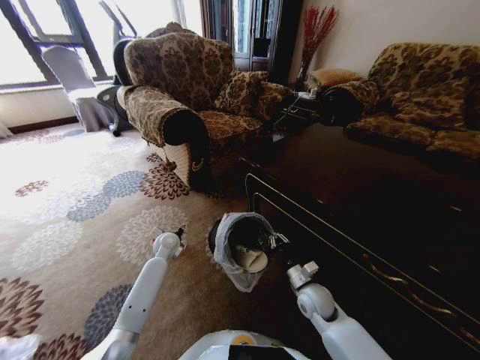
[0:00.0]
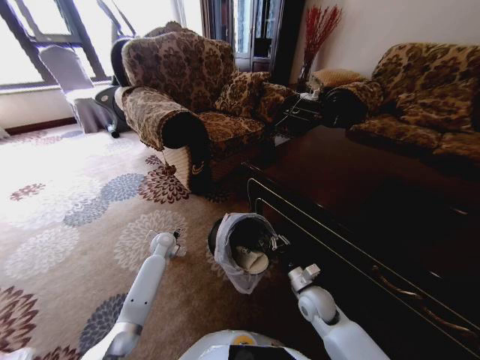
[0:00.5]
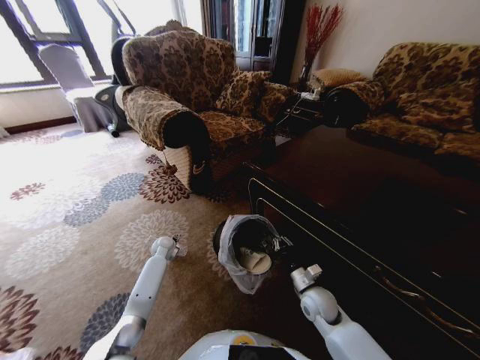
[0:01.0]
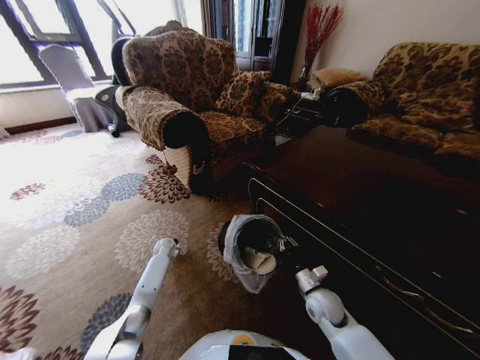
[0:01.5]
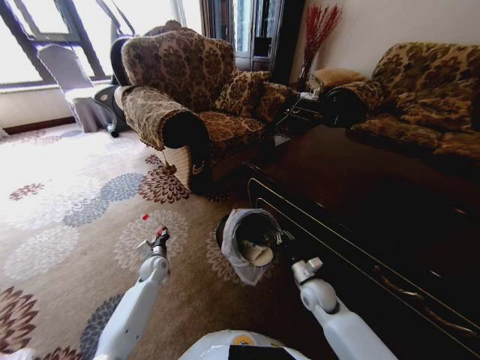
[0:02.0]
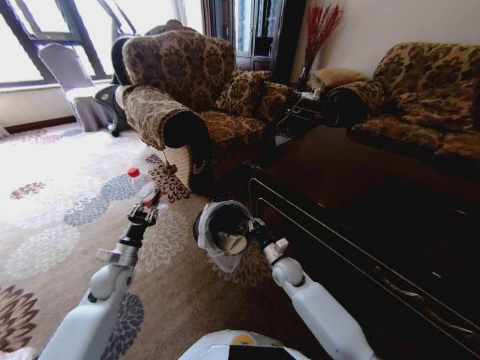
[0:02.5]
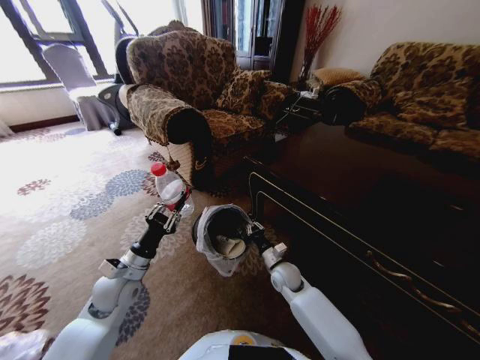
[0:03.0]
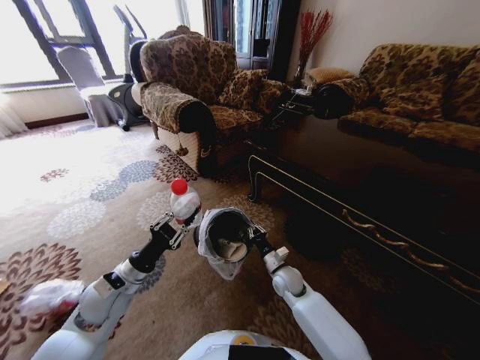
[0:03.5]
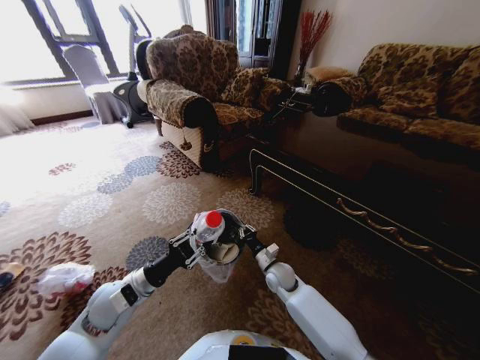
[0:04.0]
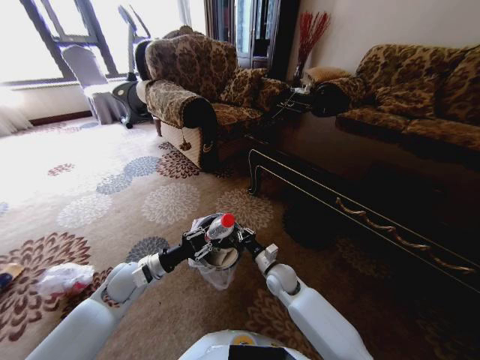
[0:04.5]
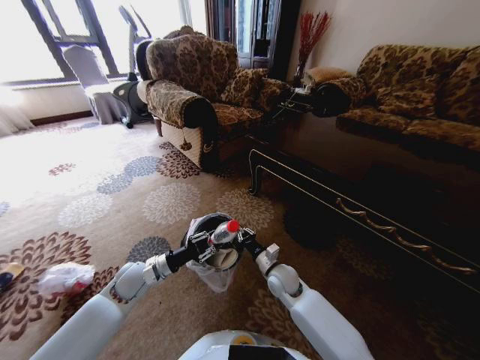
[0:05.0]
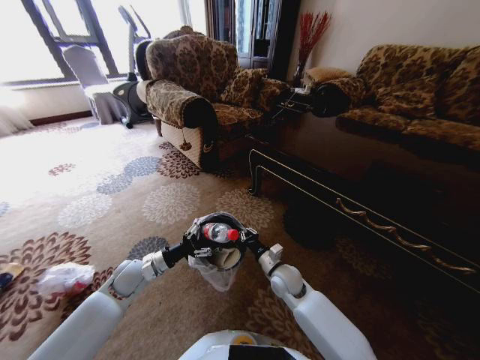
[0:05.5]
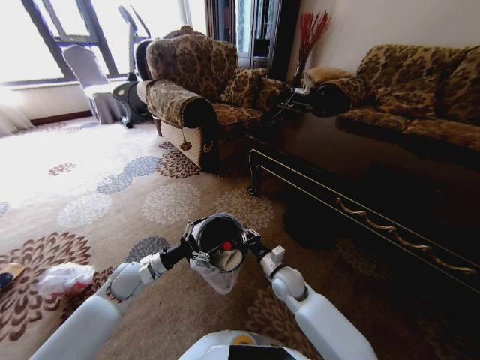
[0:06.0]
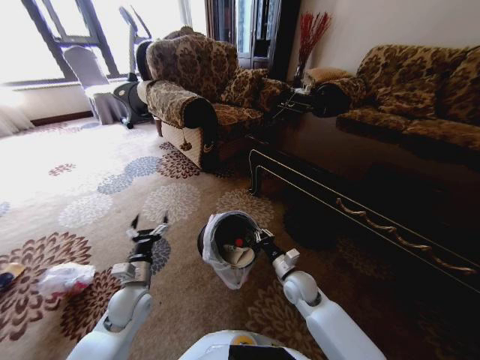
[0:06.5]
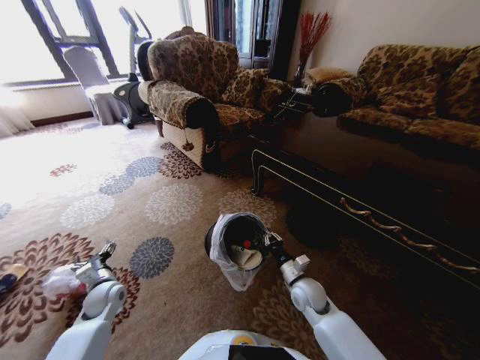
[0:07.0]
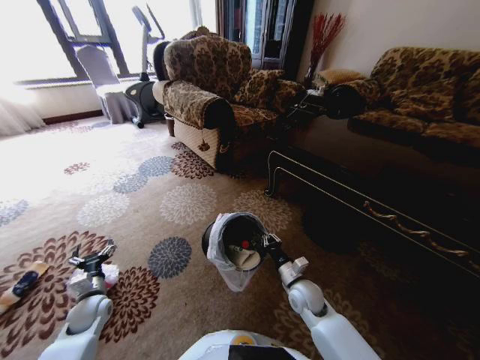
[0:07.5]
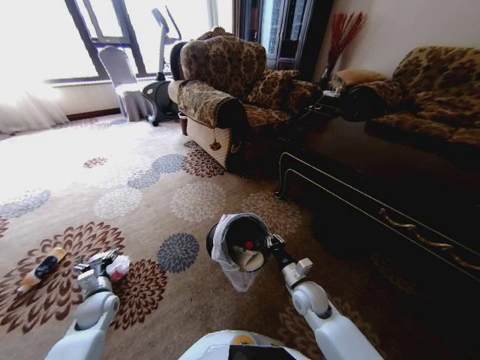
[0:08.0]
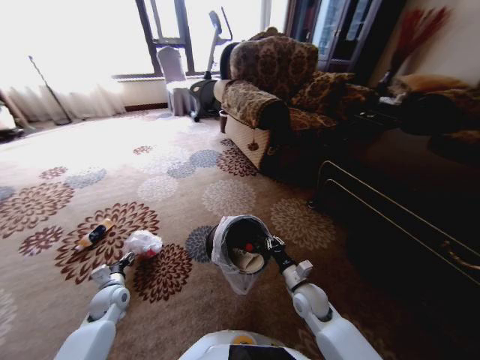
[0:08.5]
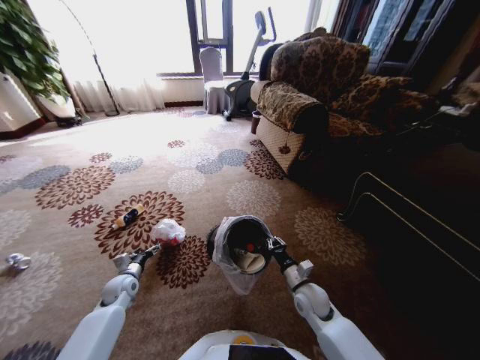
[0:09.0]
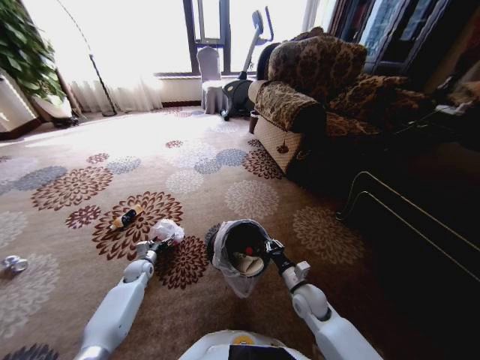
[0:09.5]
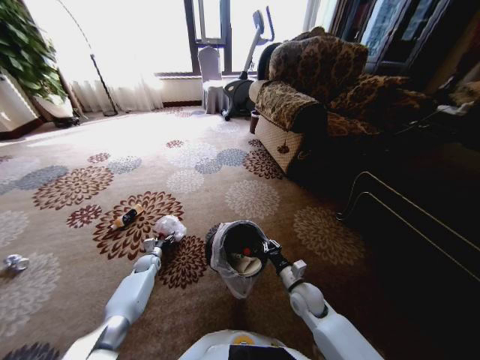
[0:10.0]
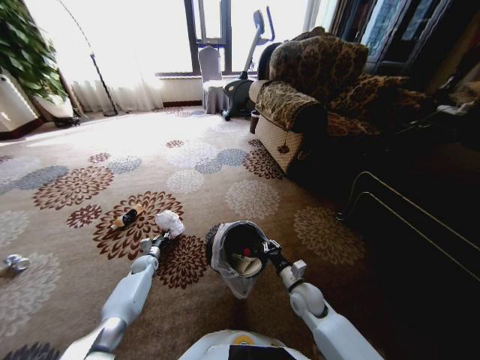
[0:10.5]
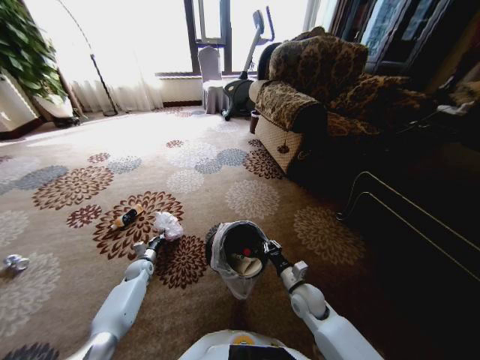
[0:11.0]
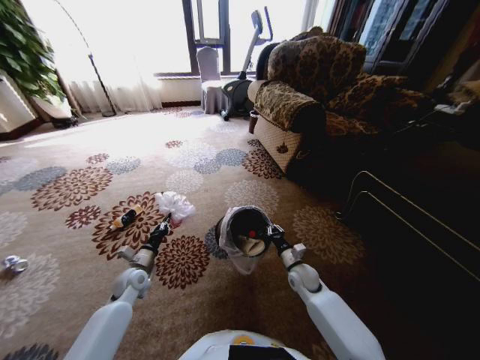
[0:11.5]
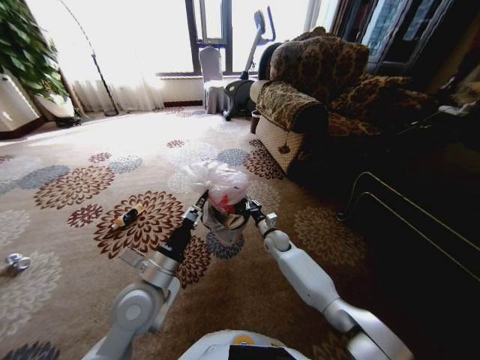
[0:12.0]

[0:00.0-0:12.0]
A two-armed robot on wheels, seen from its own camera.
Task of the whole recording: Pick up the trash from the ground and place it into the trash bin.
0:00.0 to 0:02.0: The left gripper moves downward, backward and to the left, some 10 cm, and closes.
0:02.0 to 0:04.0: The left gripper heads upward and backward, covering approximately 25 cm; the right gripper goes some 10 cm to the left and forward.
0:04.0 to 0:06.0: The left gripper is displaced forward and downward by approximately 10 cm, and opens its fingers.
0:06.0 to 0:08.0: The left gripper goes about 15 cm to the left, downward and backward. The right gripper shifts roughly 5 cm to the right.
0:08.0 to 0:10.0: The left gripper is displaced forward and downward by roughly 20 cm.
0:10.0 to 0:12.0: The left gripper shifts some 40 cm upward, backward and to the right, and closes up. Meanwhile the right gripper heads forward, covering about 20 cm.

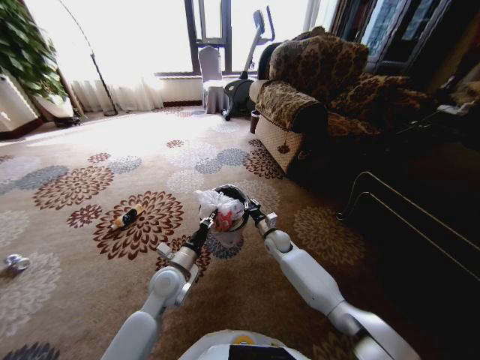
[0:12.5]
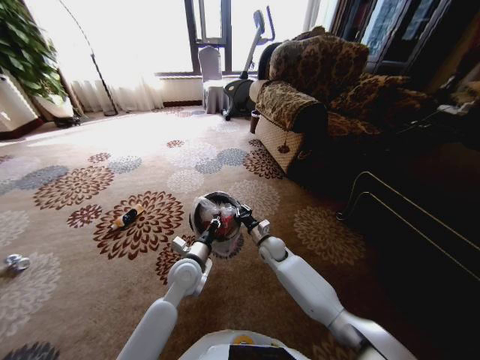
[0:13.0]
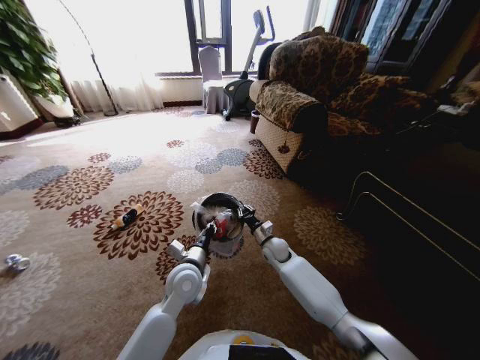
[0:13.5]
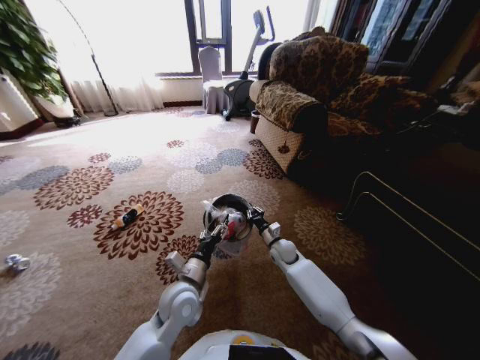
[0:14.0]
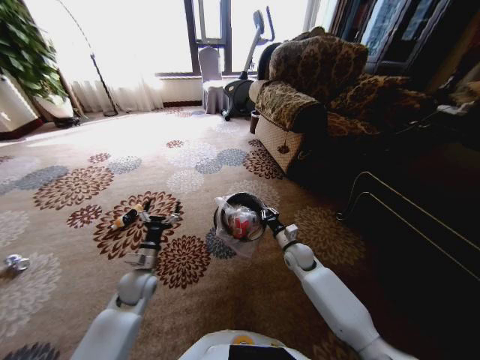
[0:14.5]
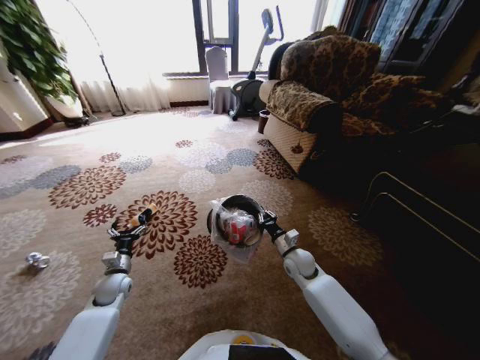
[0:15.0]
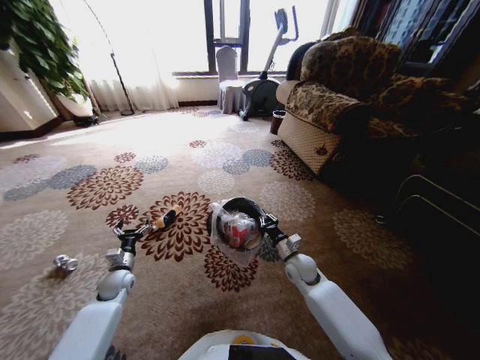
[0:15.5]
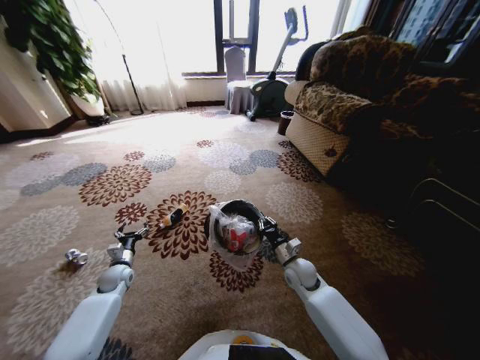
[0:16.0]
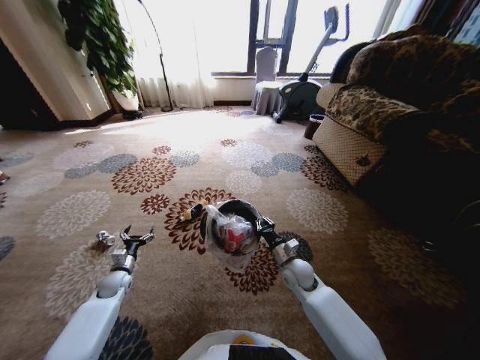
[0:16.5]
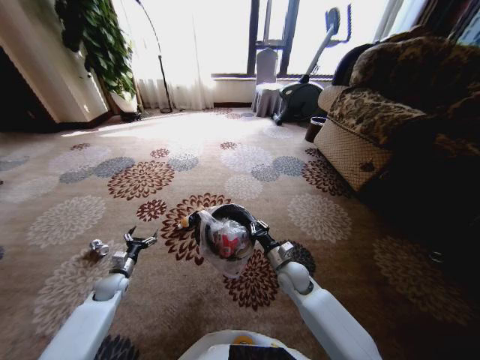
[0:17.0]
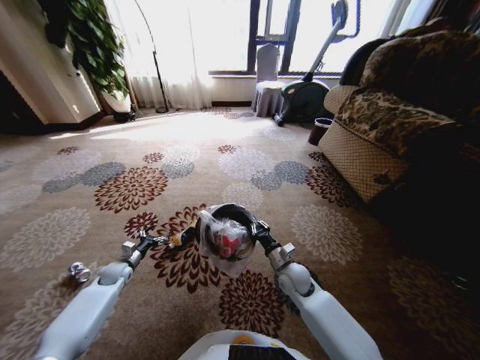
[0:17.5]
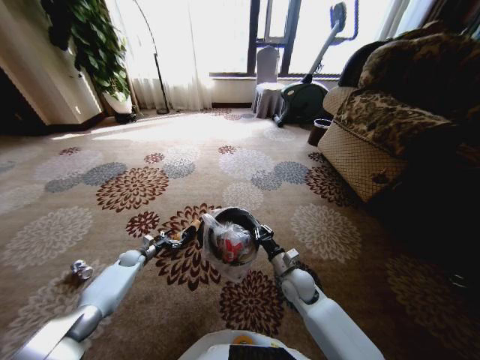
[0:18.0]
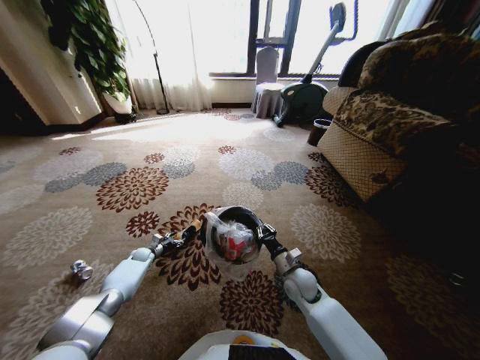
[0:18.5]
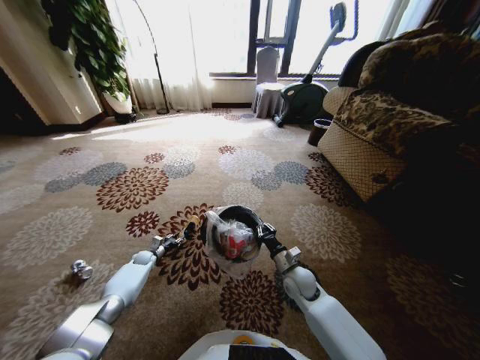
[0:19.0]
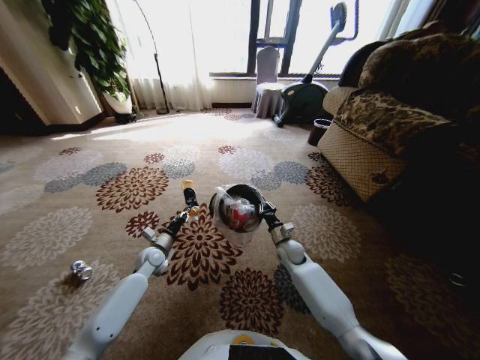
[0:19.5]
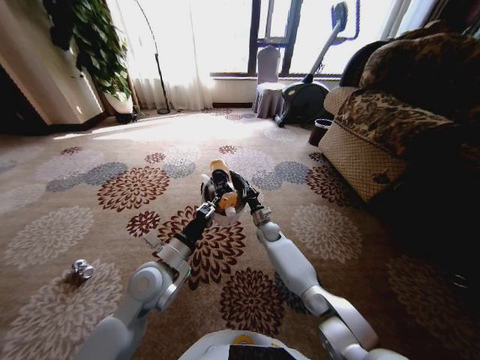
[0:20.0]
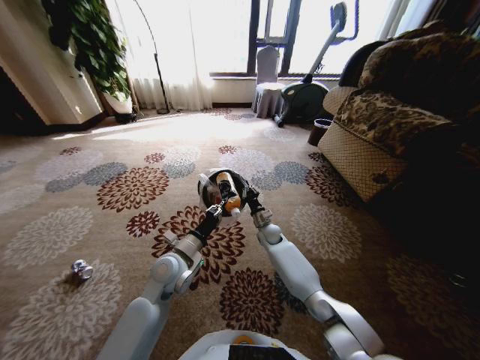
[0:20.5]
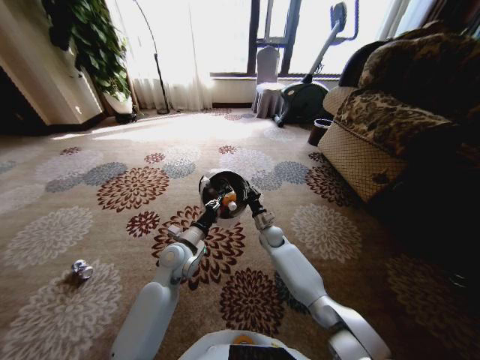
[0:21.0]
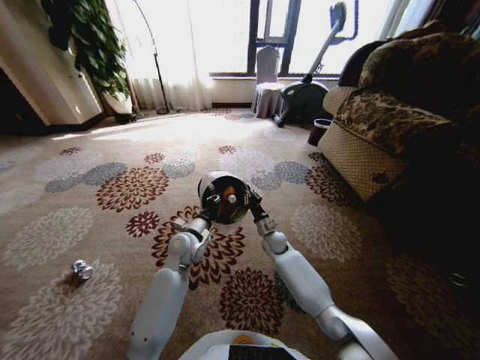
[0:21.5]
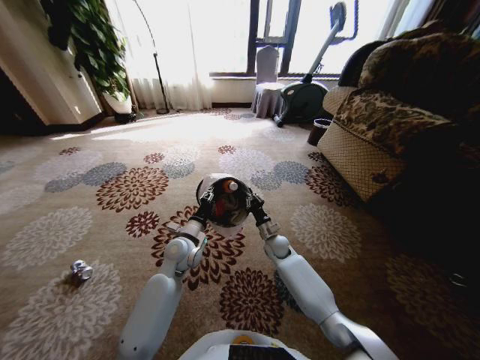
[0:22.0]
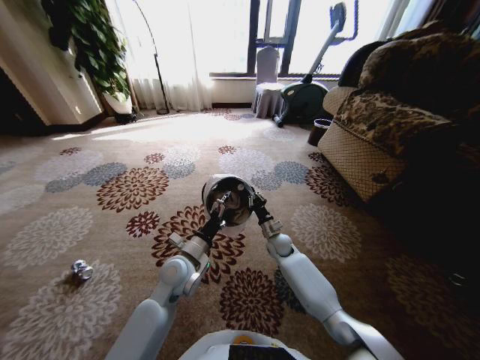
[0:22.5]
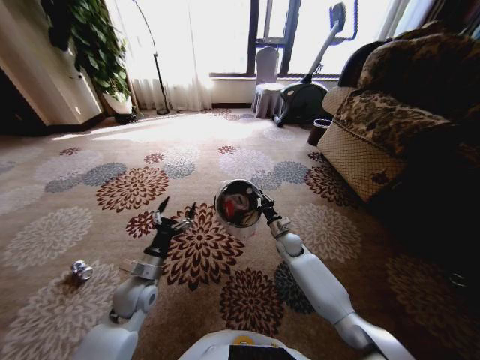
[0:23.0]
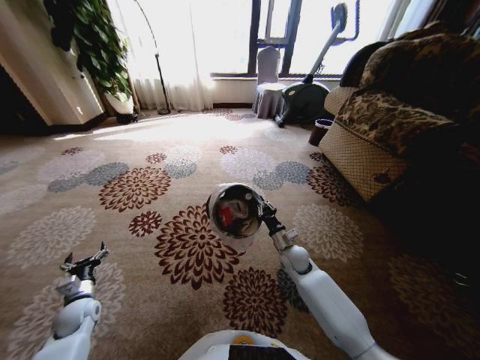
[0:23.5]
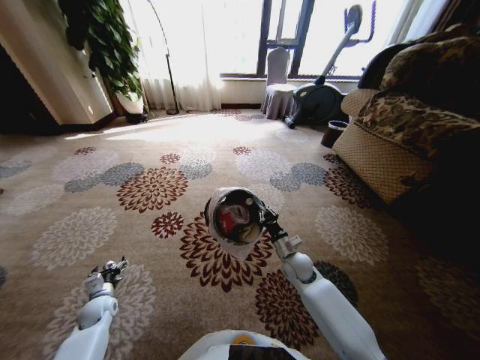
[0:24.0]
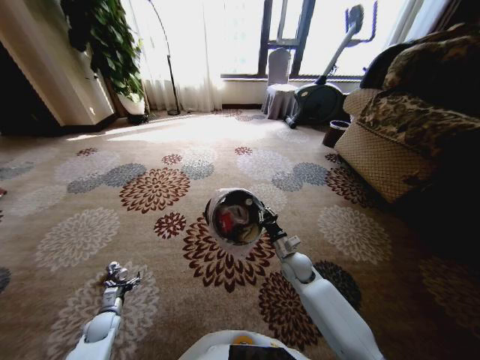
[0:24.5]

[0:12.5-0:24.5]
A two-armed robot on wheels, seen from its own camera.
Task of the whole recording: Pick up the trash from the ground and place it into the trash bin.
0:12.5 to 0:14.5: The right gripper moves to the right and backward, some 10 cm, while the left gripper shifts roughly 10 cm to the left, and opens up.
0:14.5 to 0:16.5: The left gripper travels to the left and downward by about 20 cm, while the right gripper goes some 5 cm backward.
0:16.5 to 0:18.5: The left gripper shifts about 15 cm forward and downward.
0:18.5 to 0:20.5: The right gripper goes approximately 20 cm forward. The left gripper shifts some 40 cm upward, to the right and backward, and closes.
0:20.5 to 0:22.5: The left gripper travels forward and back again, roughly 10 cm each way, and opens. Meanwhile the right gripper ends up about 5 cm from where it was.
0:22.5 to 0:24.5: The left gripper goes approximately 40 cm to the left and downward, while the right gripper goes about 10 cm backward.

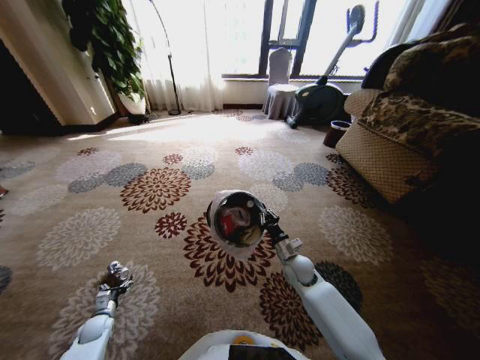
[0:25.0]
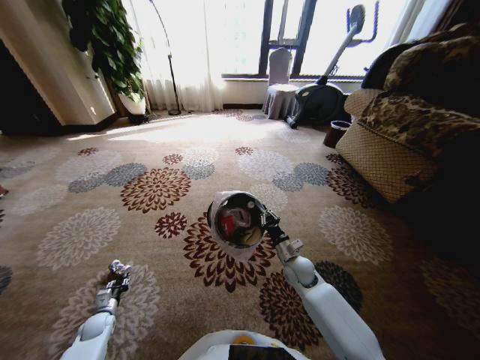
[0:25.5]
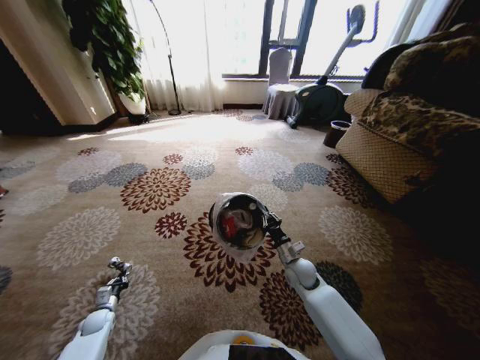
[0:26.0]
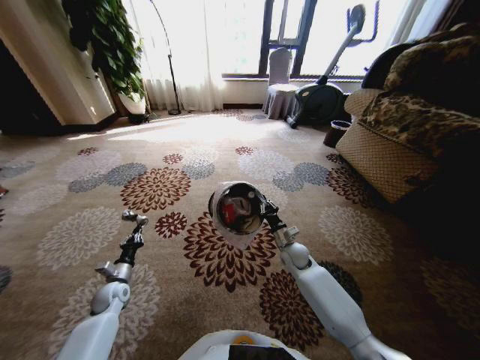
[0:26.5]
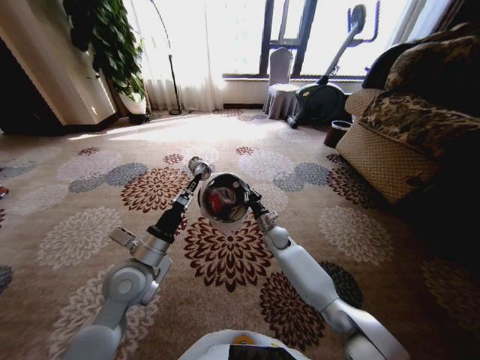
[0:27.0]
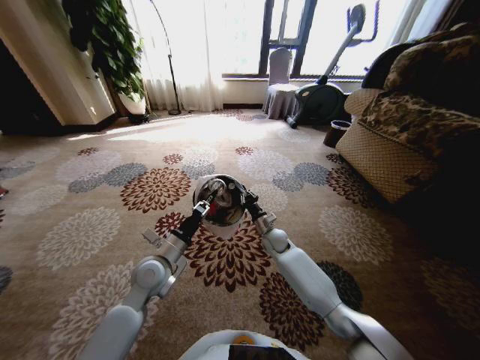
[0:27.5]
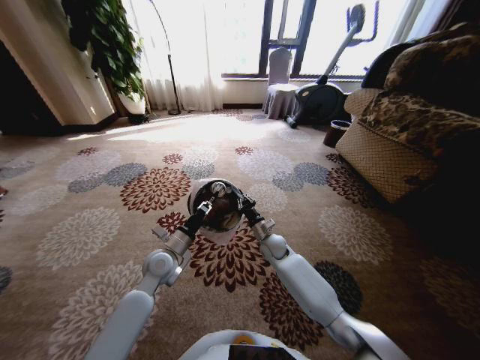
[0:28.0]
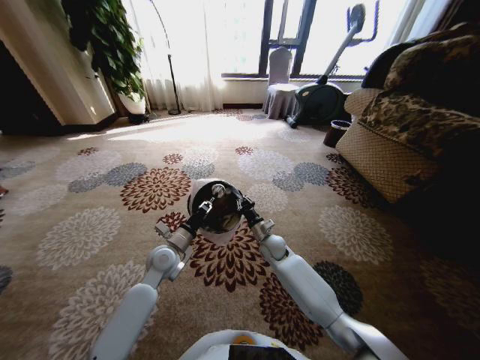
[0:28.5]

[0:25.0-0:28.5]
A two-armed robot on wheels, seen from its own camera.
Task of the whole recording: Pick up the trash from the ground and place it into the trash bin.
0:25.0 to 0:27.0: The right gripper is displaced forward and to the left by some 15 cm. Meanwhile the left gripper heads upward and to the right, covering approximately 40 cm, and closes up.
0:27.0 to 0:28.5: The left gripper shifts about 10 cm downward and forward.
